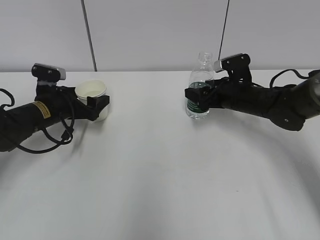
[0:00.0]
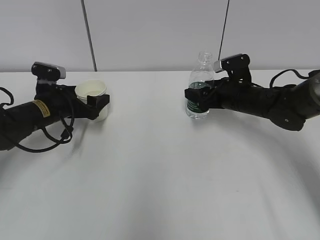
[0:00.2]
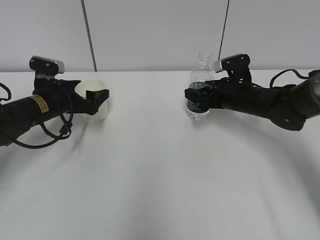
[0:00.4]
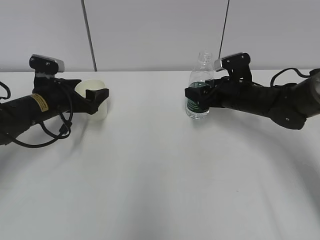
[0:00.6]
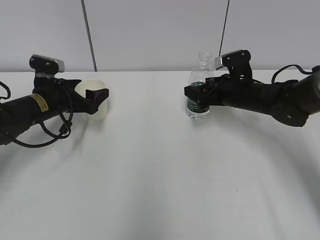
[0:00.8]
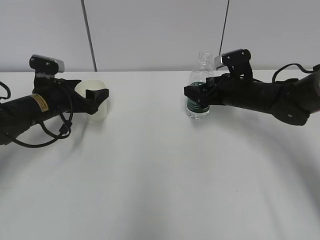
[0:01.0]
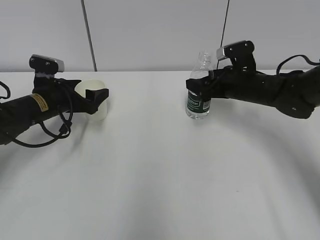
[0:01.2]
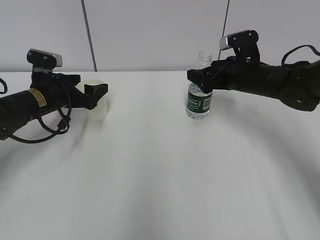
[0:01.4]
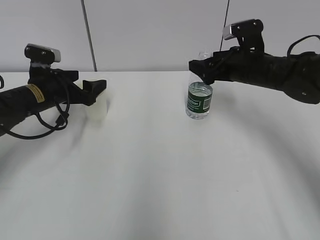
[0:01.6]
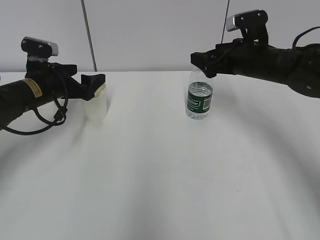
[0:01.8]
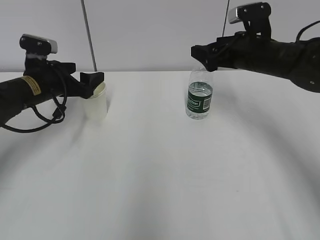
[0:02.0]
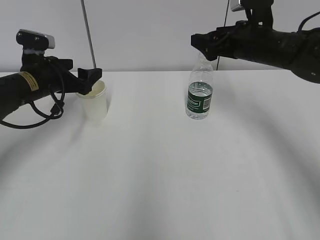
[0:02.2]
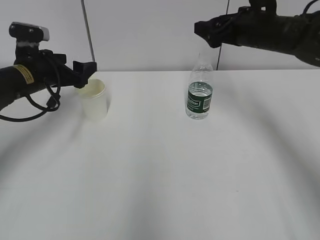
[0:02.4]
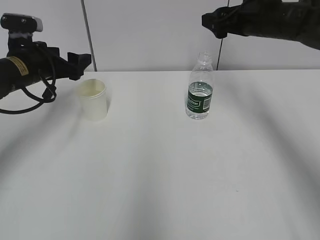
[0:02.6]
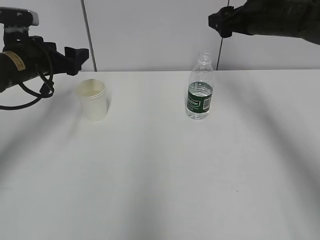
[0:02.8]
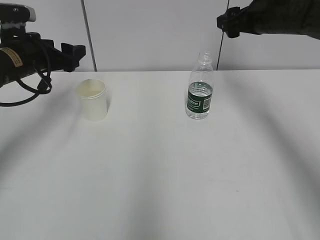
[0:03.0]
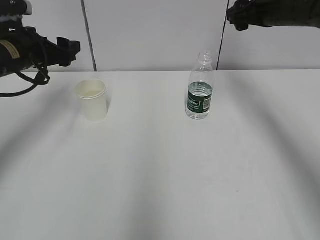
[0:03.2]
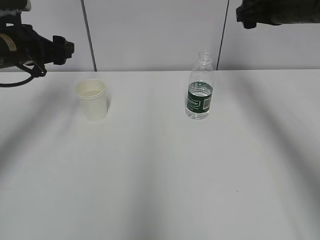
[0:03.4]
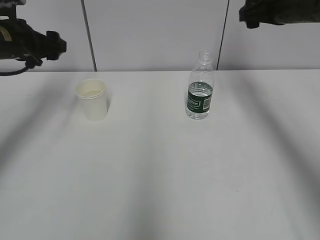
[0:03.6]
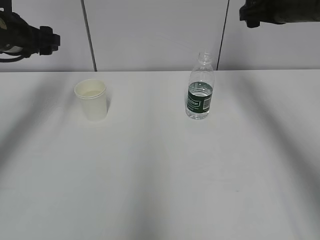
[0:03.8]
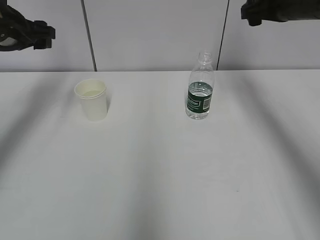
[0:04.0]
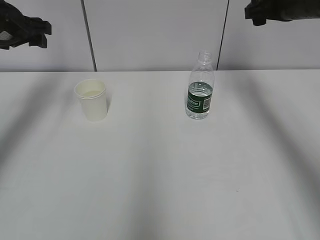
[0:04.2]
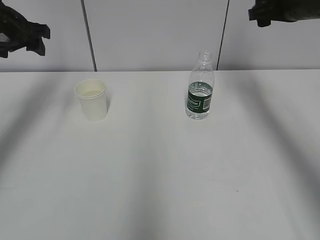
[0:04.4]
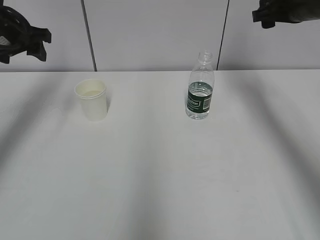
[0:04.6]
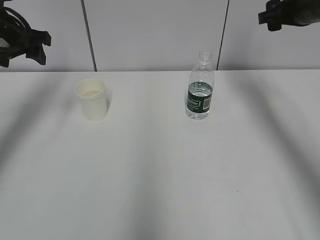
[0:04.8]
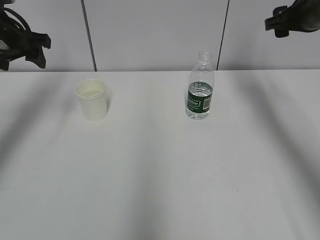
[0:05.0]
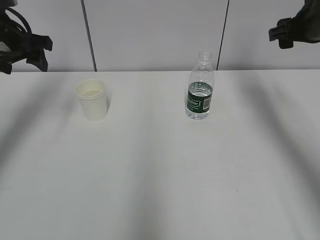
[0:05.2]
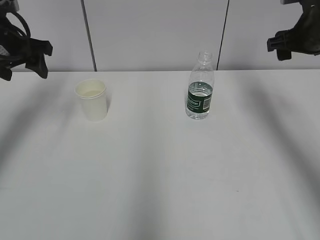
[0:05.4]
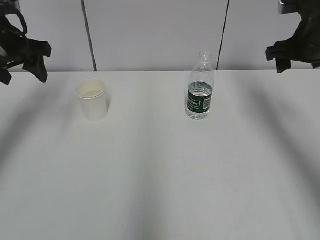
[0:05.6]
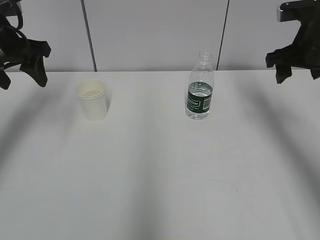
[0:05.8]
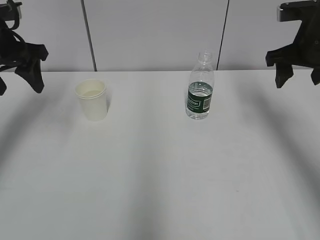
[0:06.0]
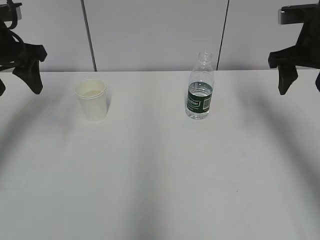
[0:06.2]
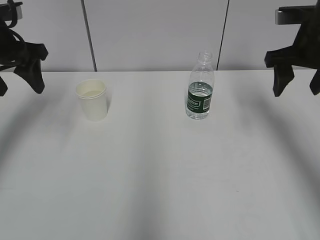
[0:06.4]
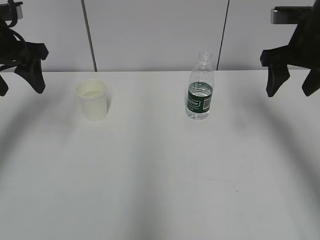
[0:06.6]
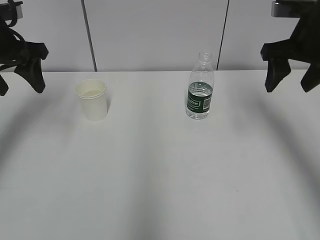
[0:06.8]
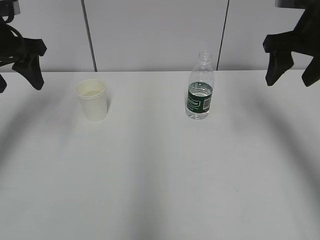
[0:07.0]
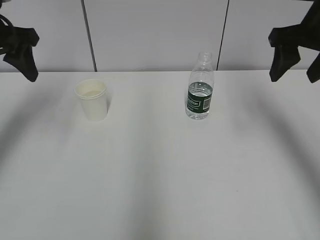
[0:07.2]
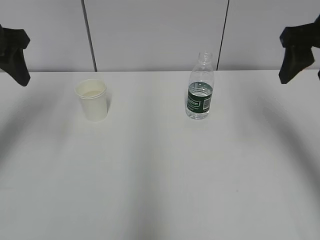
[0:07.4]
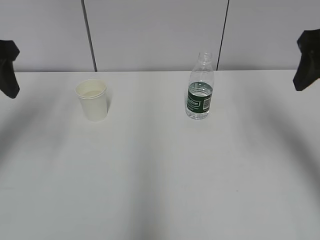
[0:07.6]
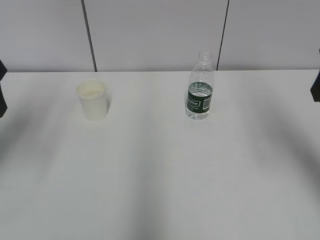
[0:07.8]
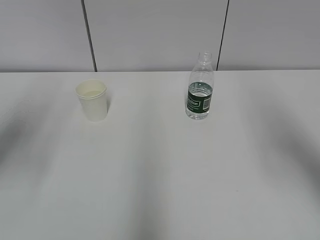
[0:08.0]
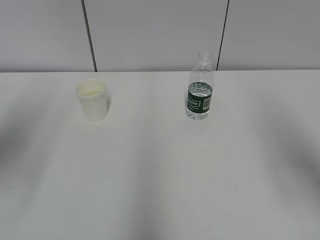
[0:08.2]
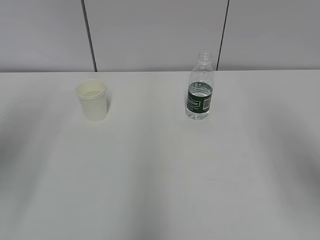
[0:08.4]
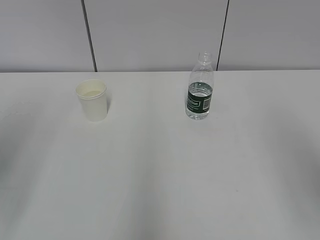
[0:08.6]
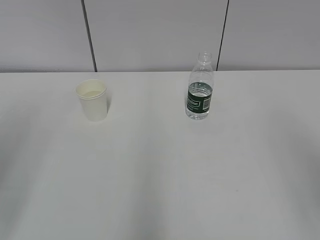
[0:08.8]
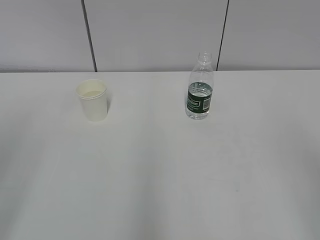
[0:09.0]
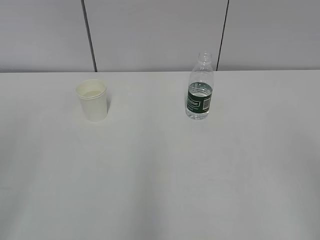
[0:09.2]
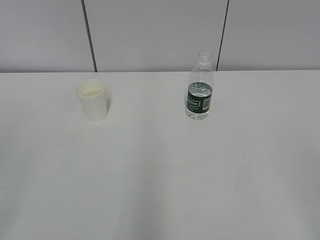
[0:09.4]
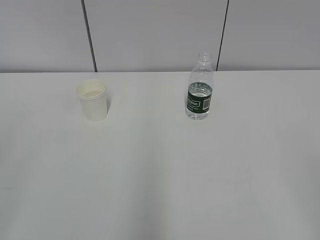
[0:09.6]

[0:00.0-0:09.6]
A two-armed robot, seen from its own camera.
0:00.0 to 0:01.6: The right gripper is displaced upward by approximately 5 cm.
0:01.6 to 0:03.2: Both grippers travel together upward, some 10 cm. The right gripper closes its fingers.
0:03.2 to 0:04.8: The left gripper travels upward by about 5 cm.
0:04.8 to 0:06.4: The right gripper goes roughly 5 cm backward.
0:06.4 to 0:08.0: The left gripper heads backward, covering about 15 cm; the right gripper shifts approximately 15 cm backward and upward.
0:08.0 to 0:09.6: Both grippers travel together backward, approximately 25 cm.

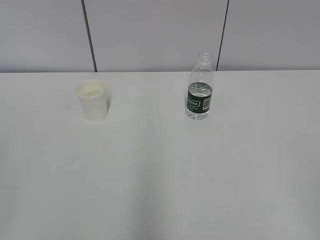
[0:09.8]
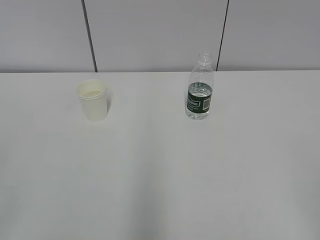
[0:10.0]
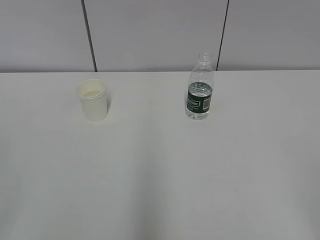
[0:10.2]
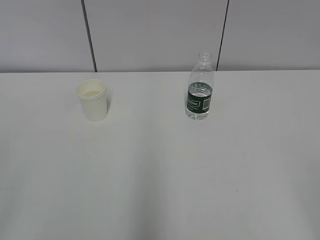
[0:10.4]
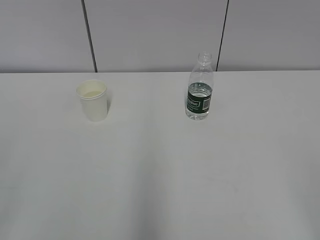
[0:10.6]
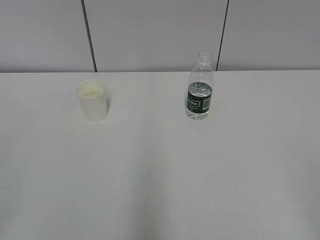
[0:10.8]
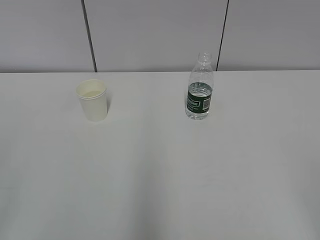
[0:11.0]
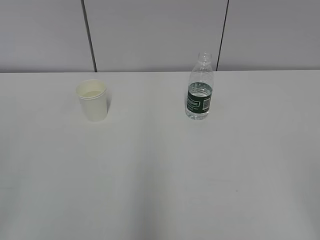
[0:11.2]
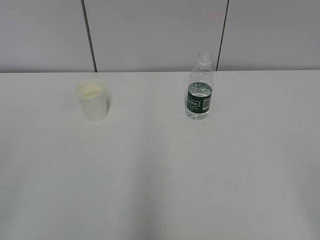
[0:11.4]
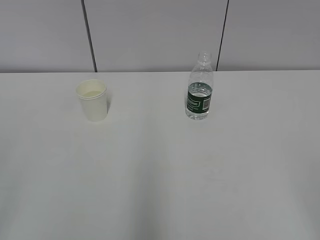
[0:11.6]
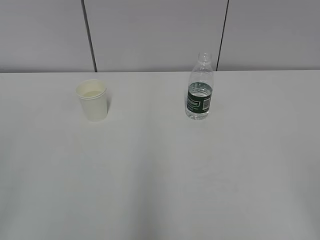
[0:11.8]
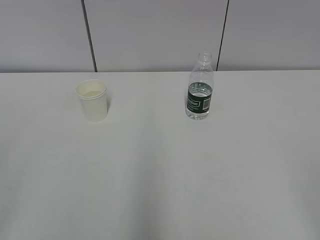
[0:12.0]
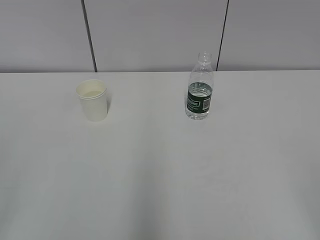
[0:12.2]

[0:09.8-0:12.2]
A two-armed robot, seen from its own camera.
0:11.0 to 0:12.2: Both grippers stay about where they are.
